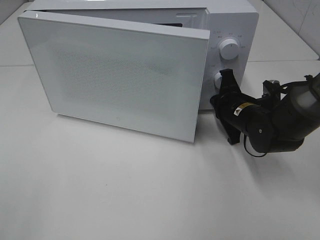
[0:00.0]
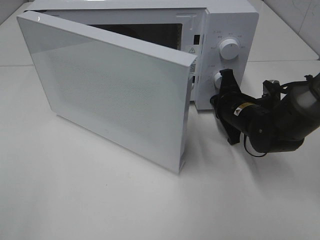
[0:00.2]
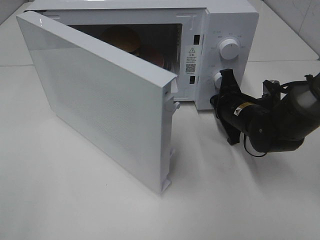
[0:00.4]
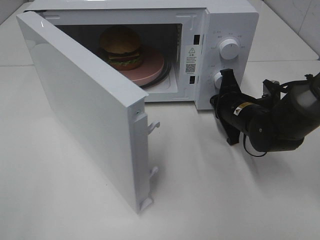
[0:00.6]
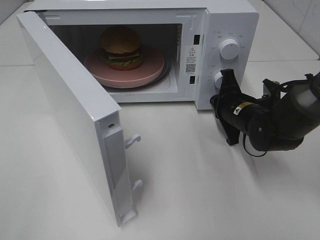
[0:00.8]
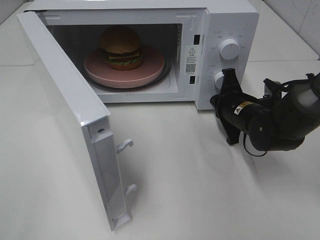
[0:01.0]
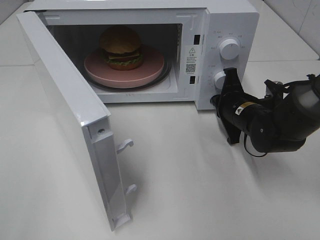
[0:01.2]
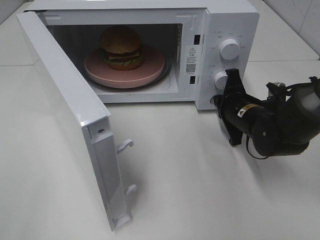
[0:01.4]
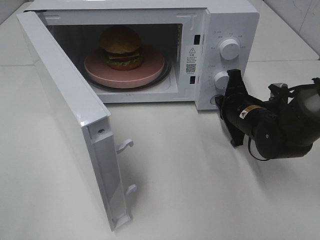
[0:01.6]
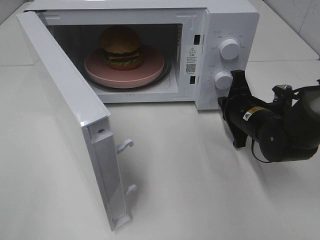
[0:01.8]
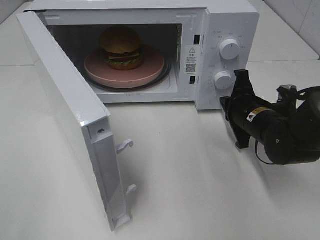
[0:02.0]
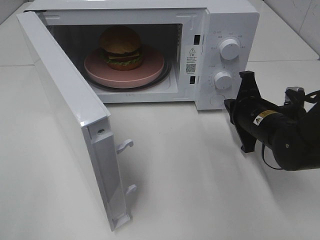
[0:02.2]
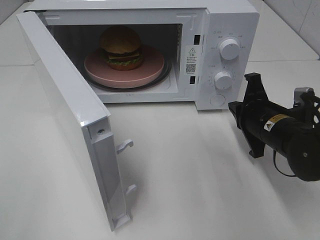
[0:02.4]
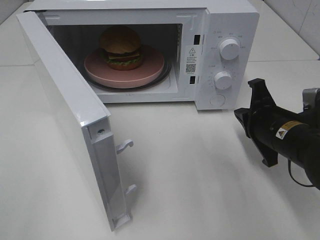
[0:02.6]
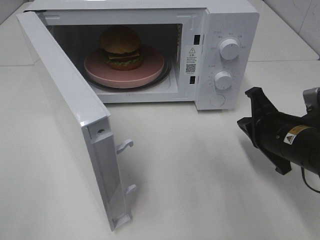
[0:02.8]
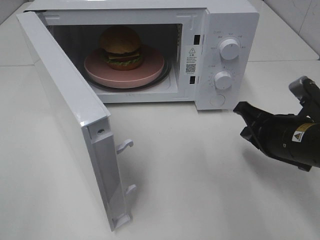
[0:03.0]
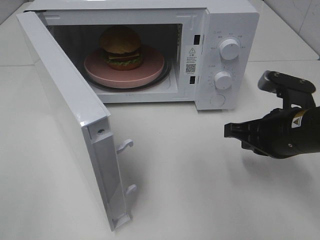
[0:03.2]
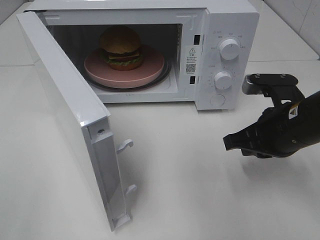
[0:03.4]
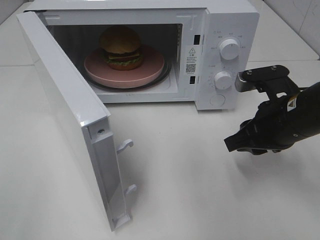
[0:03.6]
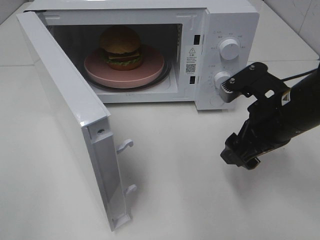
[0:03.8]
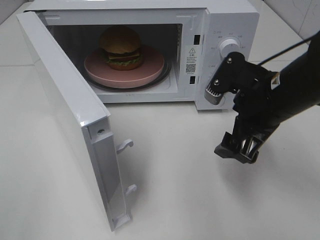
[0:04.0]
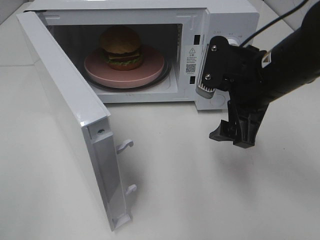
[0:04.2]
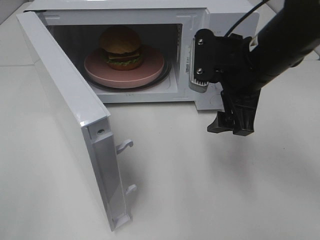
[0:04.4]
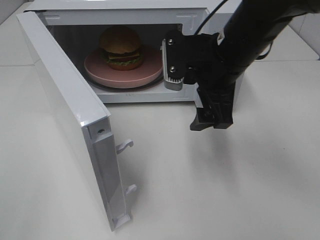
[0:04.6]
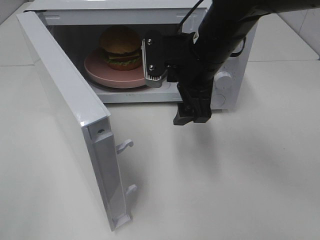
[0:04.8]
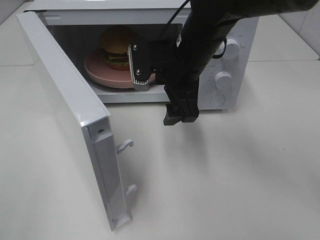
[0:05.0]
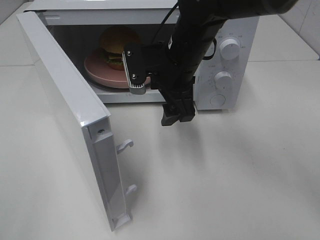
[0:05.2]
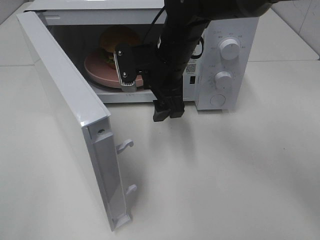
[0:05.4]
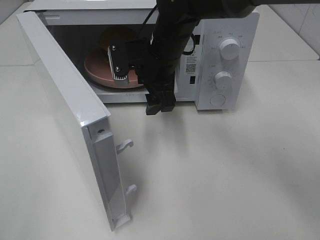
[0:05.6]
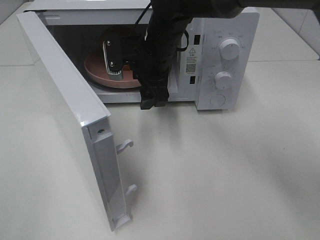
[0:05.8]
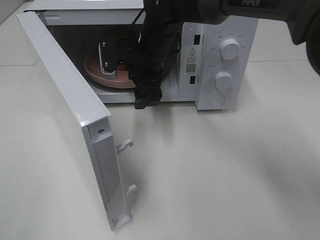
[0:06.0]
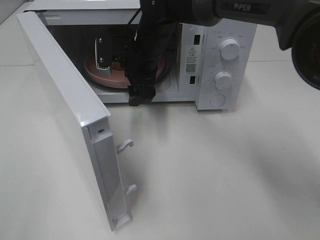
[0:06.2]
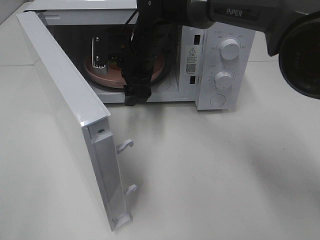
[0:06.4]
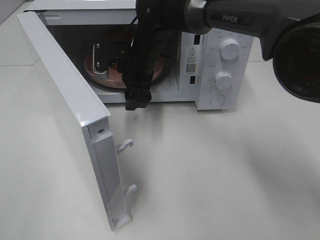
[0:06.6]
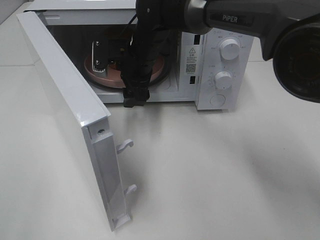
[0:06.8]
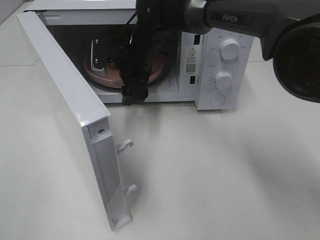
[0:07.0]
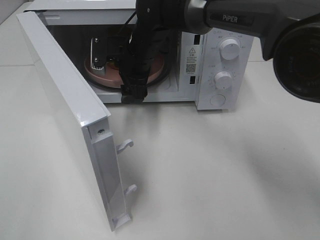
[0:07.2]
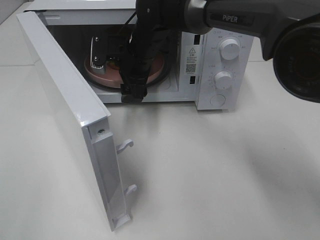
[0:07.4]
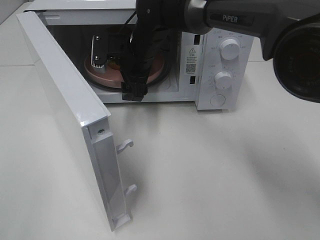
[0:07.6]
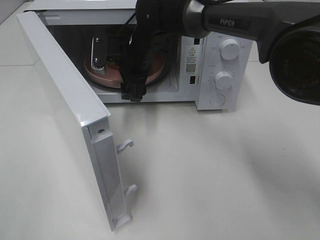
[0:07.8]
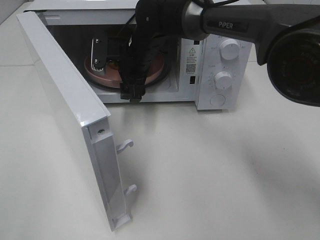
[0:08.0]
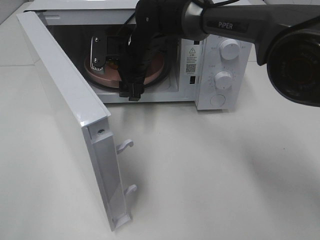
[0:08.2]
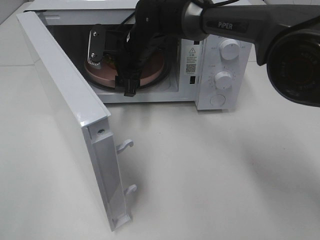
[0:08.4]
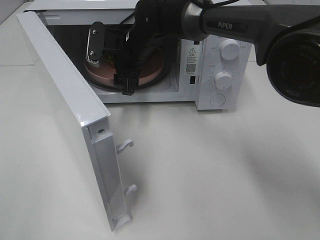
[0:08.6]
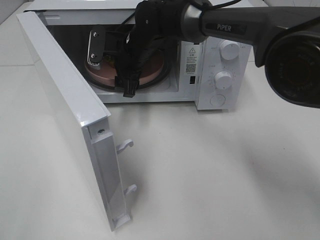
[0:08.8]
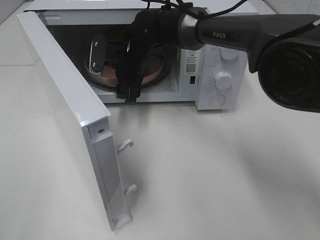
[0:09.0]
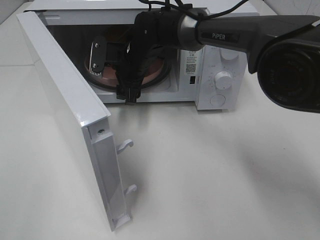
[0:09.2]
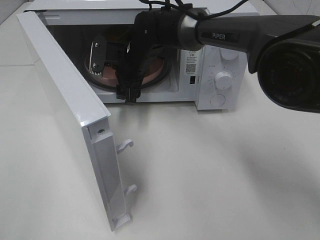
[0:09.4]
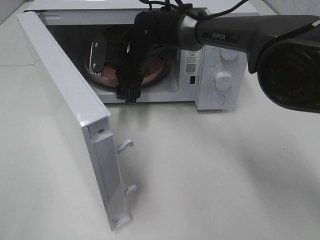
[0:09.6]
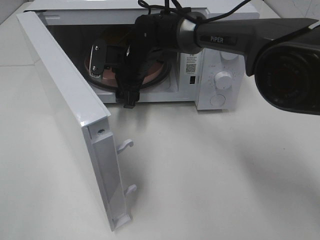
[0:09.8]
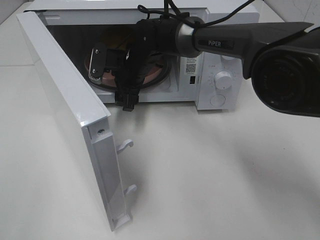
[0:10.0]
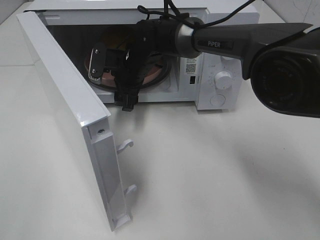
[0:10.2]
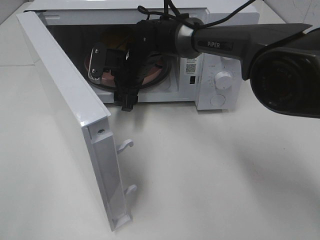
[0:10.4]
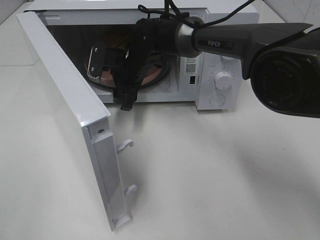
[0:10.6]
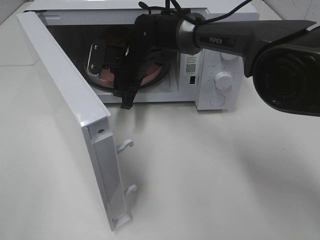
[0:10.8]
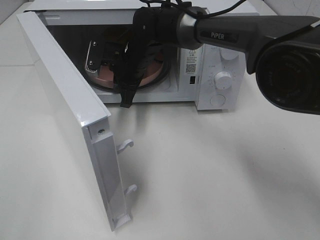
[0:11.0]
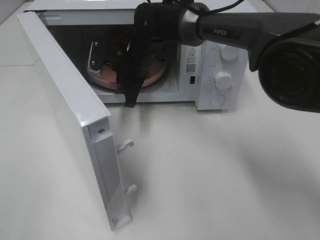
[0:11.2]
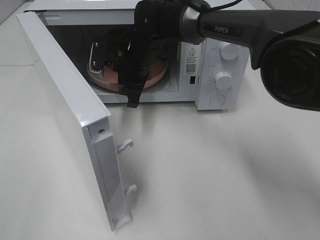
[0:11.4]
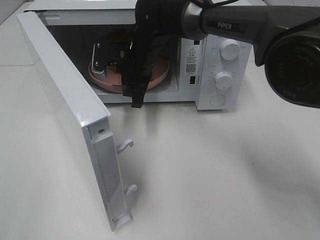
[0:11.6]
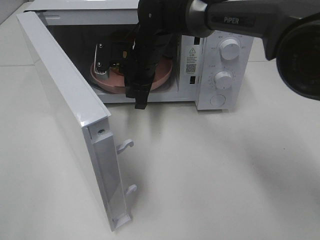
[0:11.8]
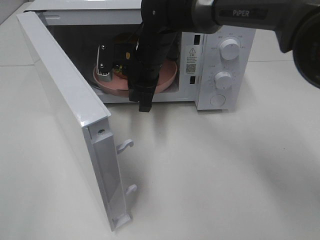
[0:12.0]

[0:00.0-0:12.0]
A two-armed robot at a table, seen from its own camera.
Task of the whole recording: Heat the burger.
Step, 0:02.0 to 0:11.0: Right hand: grab the plate with the hamburger.
0:01.6 to 0:03.0: The right gripper is displaced backward and upward by about 10 cm.
0:03.0 to 0:04.4: The right gripper shifts roughly 15 cm upward, to the left and forward, and opens.
0:04.4 to 0:06.0: The right gripper travels to the left and forward by roughly 20 cm.
0:06.0 to 0:09.0: The grippers move only a little.
0:09.0 to 0:10.4: The grippers stay close to where they were, moving slightly.
0:10.4 to 0:12.0: The right gripper changes place by some 5 cm, and closes its fingers.

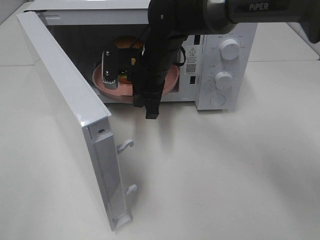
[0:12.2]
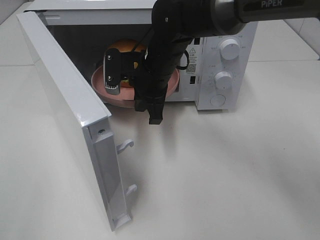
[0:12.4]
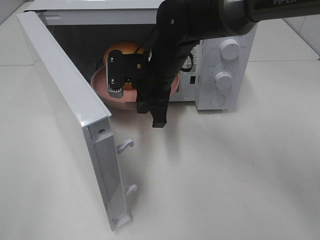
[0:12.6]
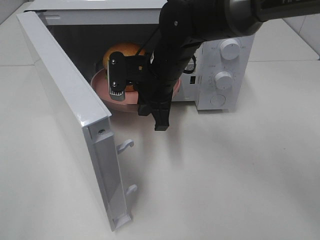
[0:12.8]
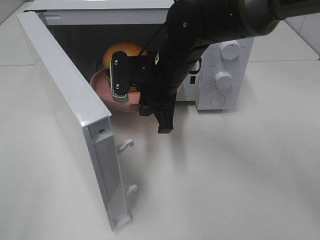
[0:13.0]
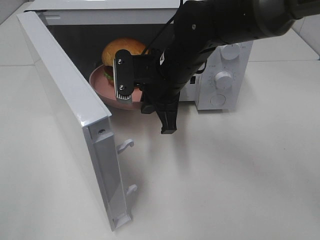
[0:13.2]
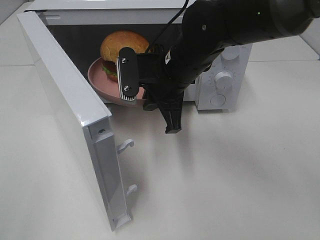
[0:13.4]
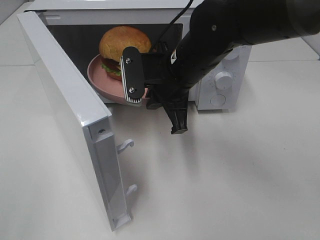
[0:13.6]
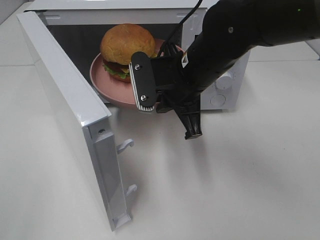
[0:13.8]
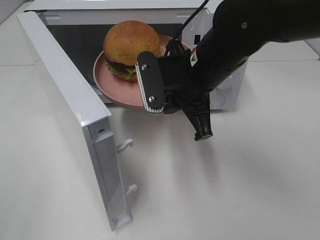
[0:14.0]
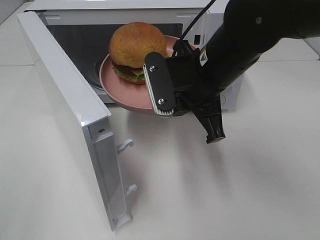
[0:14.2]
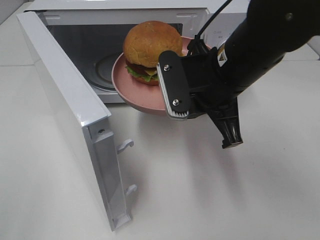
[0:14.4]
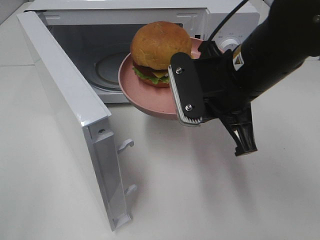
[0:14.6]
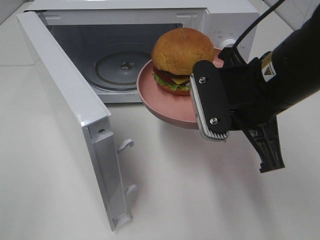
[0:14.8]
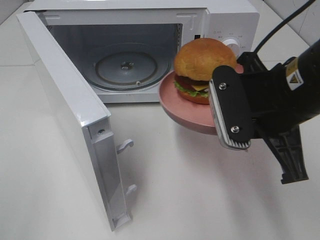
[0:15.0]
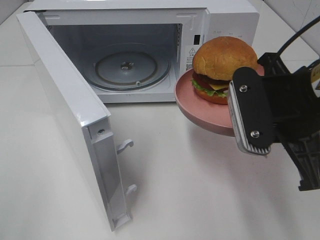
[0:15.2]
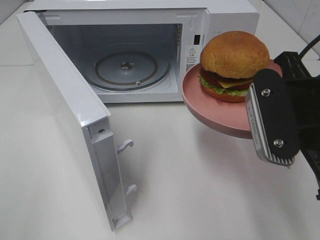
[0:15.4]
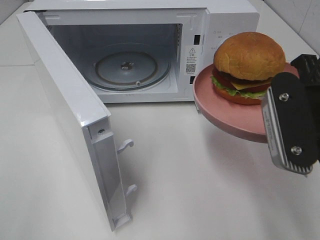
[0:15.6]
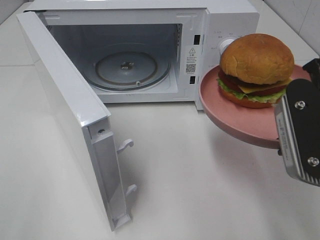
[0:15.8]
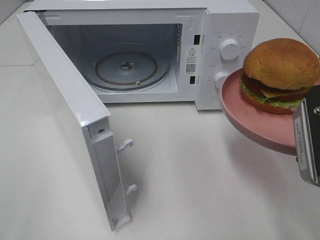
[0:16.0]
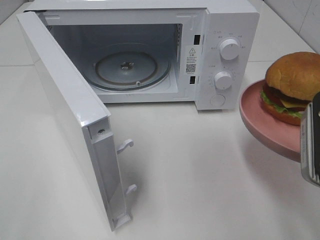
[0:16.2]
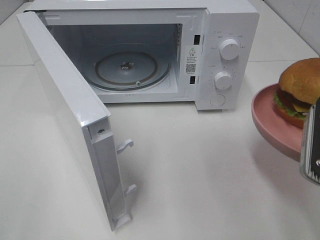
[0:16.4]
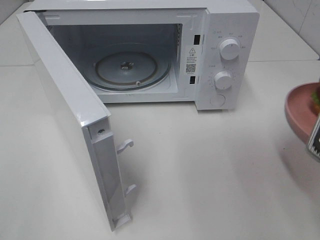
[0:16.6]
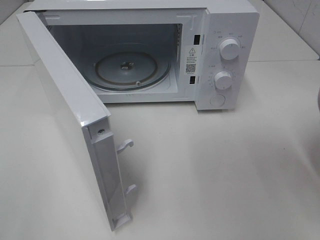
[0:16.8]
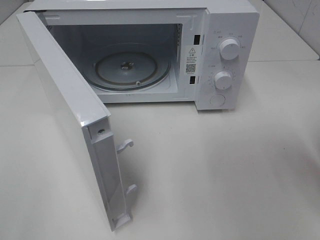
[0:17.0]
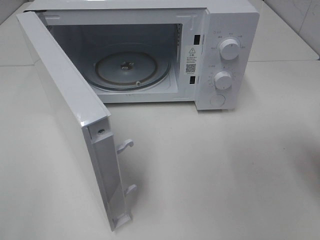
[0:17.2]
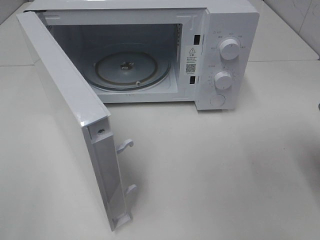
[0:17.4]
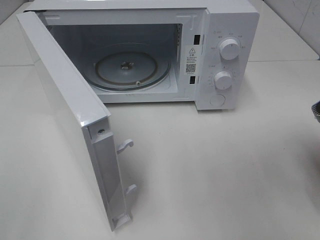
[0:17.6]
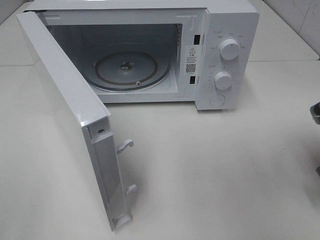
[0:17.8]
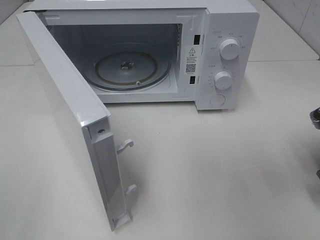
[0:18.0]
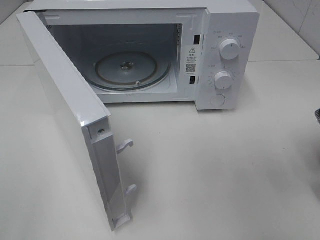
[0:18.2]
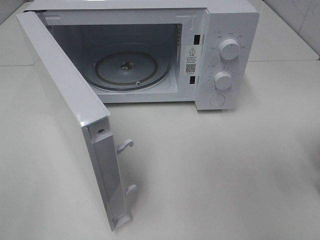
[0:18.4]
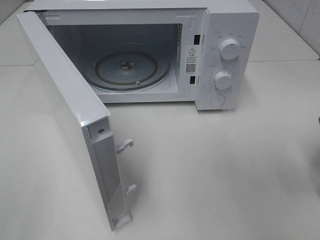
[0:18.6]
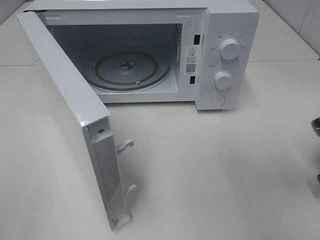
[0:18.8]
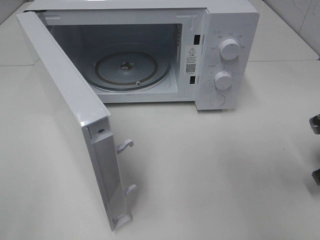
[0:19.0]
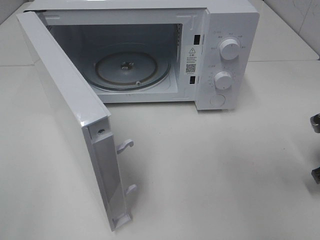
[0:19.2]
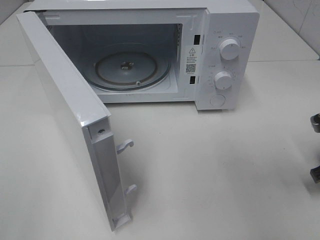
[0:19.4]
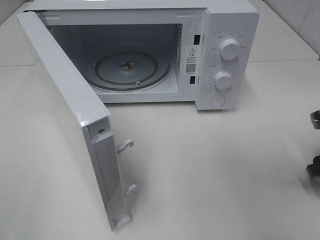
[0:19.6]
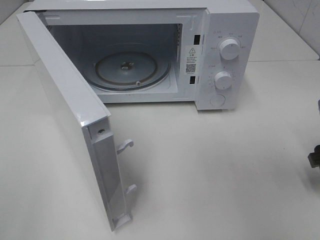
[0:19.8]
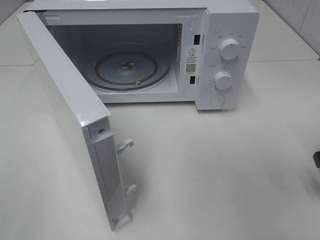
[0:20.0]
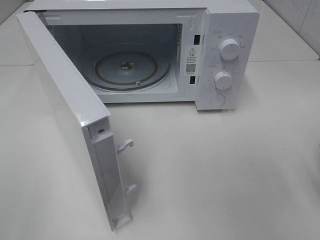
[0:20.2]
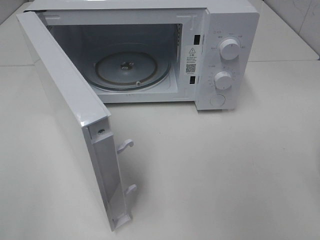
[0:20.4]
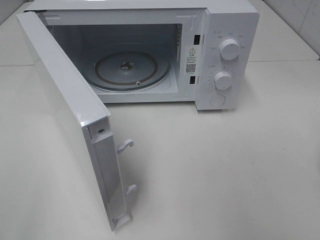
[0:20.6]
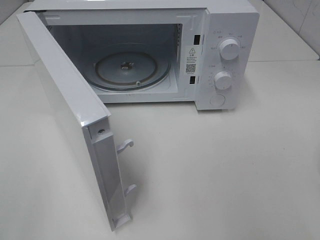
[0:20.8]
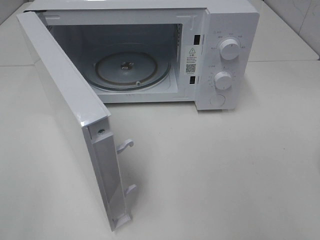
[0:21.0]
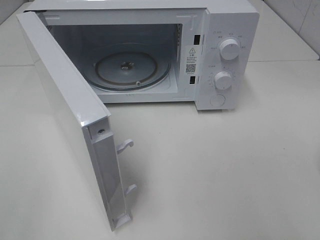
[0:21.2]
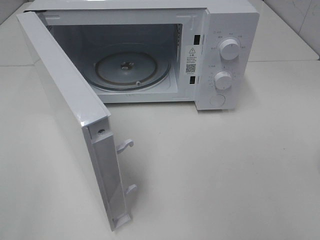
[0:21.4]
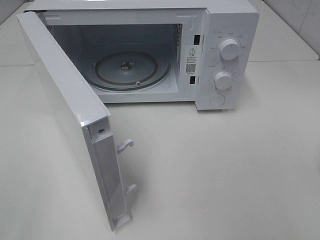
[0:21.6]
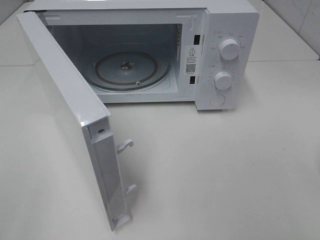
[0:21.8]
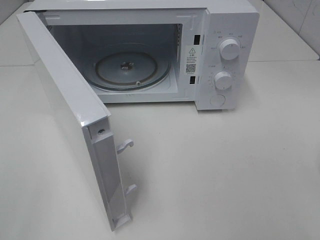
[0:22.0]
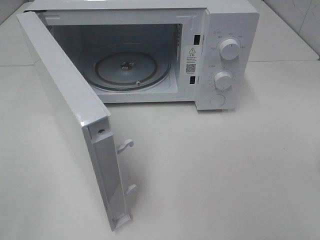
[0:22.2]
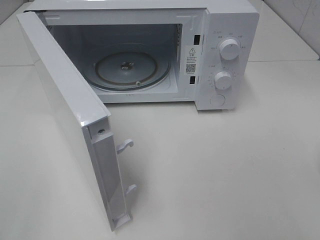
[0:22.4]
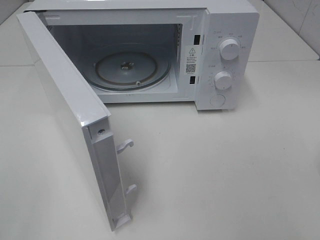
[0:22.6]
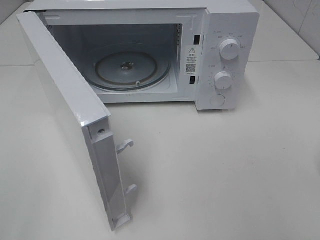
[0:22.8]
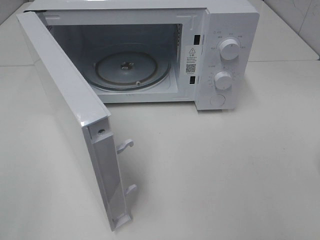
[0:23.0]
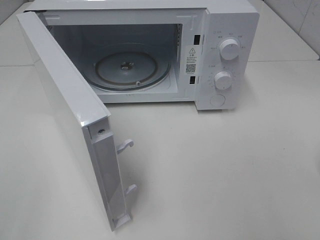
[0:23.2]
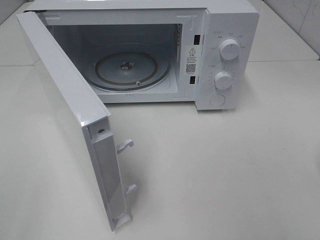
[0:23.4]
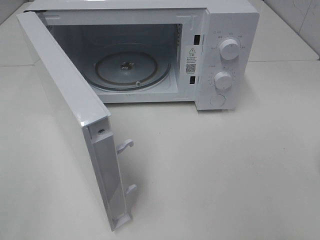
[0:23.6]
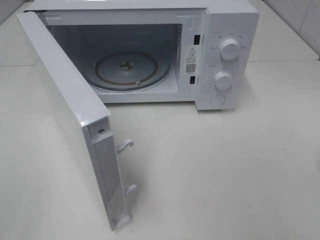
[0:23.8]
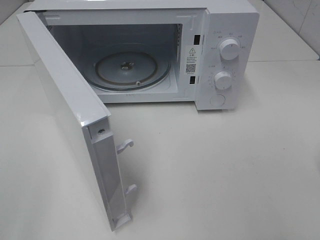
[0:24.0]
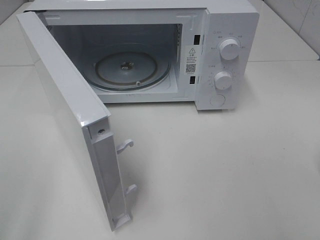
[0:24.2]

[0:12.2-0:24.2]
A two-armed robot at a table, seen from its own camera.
Task of the whole recording: Heat the burger.
Step, 0:12.2 to 0:19.2: Right hand: place the plate on the table.
0:12.2 to 0:13.8: The right gripper travels backward and to the right by some 10 cm.
0:13.8 to 0:15.2: The right gripper heads backward and to the right, covering about 15 cm.
0:15.2 to 0:16.6: The right gripper travels to the right and backward by approximately 10 cm.
0:16.6 to 0:18.2: The right gripper moves downward, forward and to the right, roughly 15 cm.
0:19.8 to 0:21.2: The right gripper moves backward and upward, roughly 25 cm.
